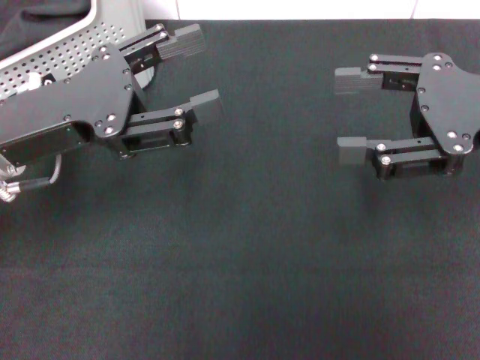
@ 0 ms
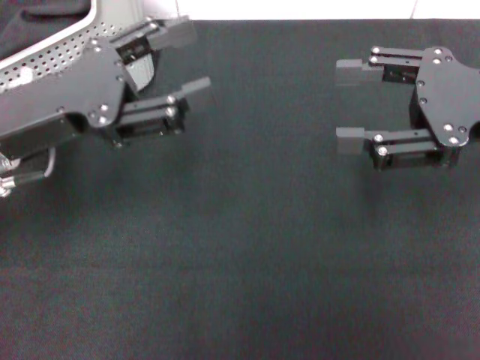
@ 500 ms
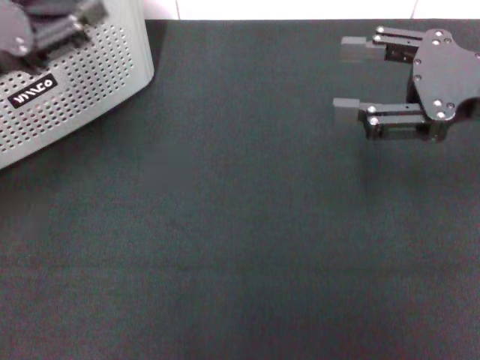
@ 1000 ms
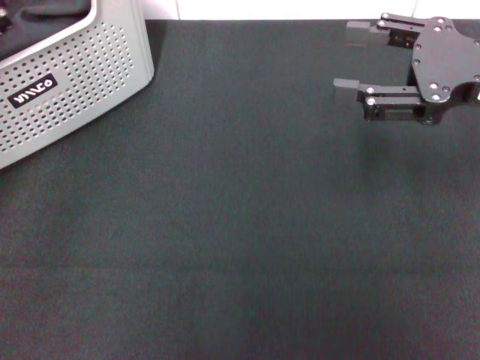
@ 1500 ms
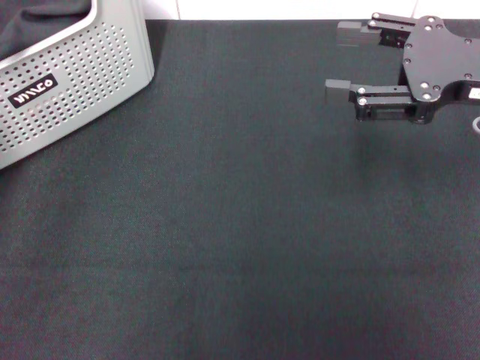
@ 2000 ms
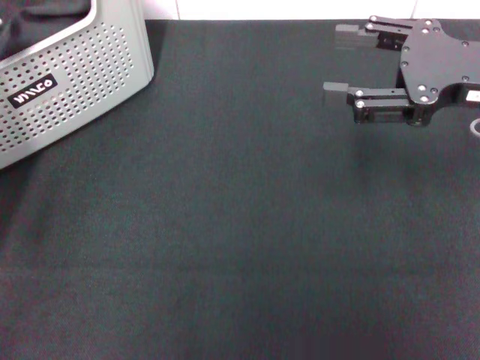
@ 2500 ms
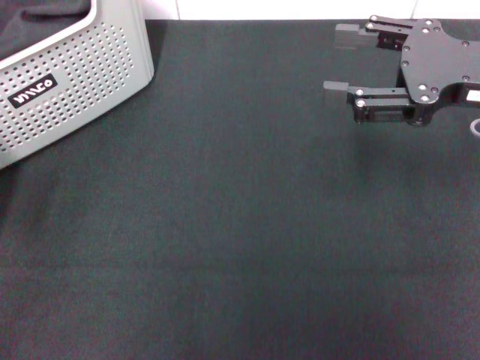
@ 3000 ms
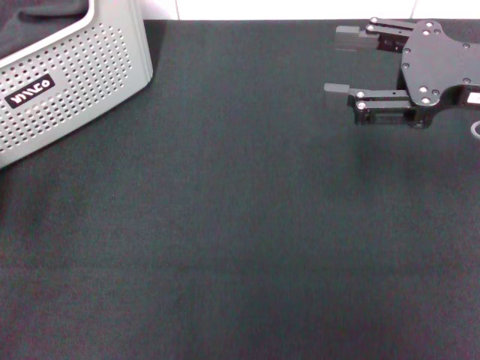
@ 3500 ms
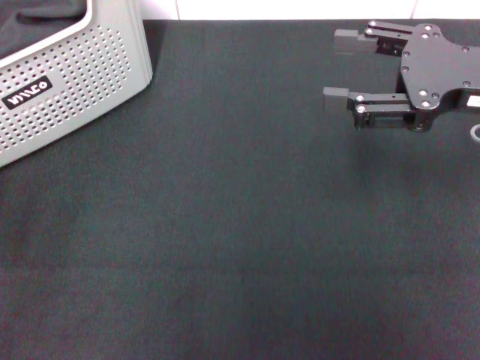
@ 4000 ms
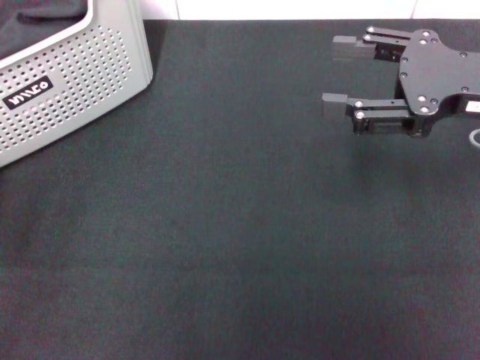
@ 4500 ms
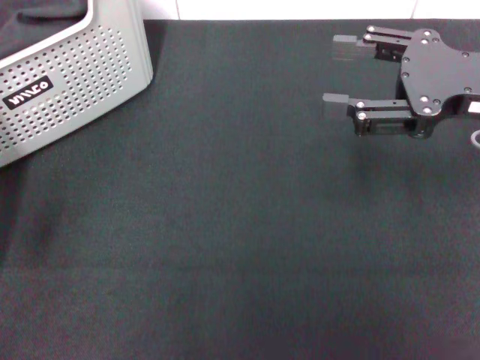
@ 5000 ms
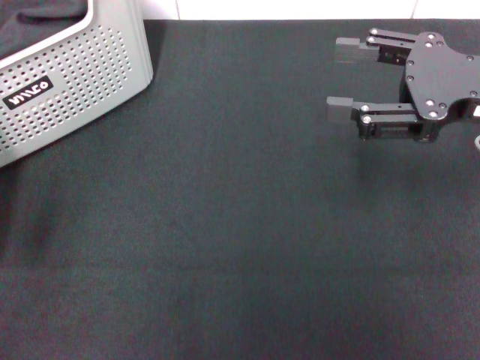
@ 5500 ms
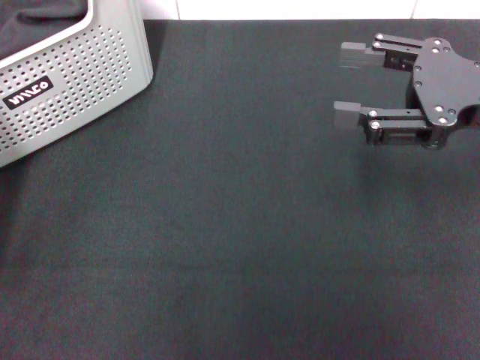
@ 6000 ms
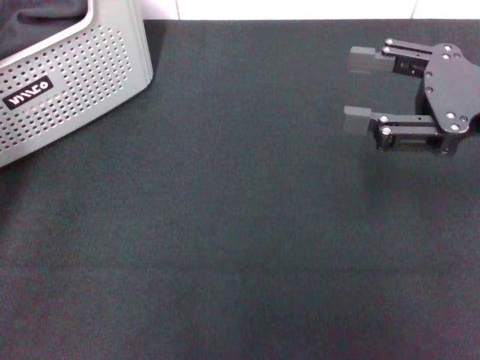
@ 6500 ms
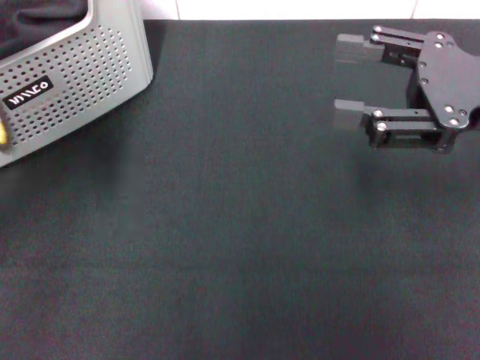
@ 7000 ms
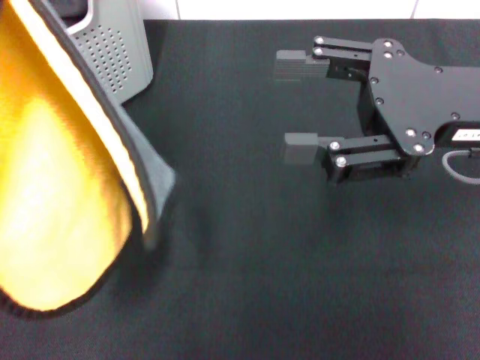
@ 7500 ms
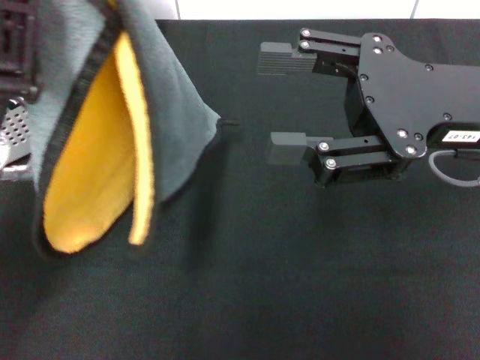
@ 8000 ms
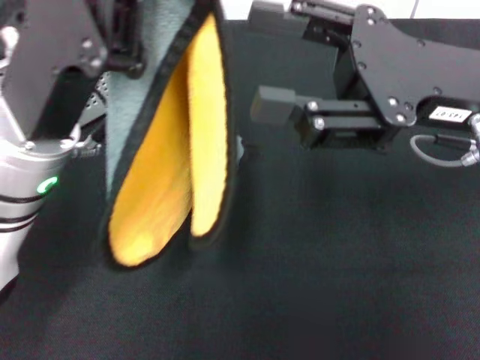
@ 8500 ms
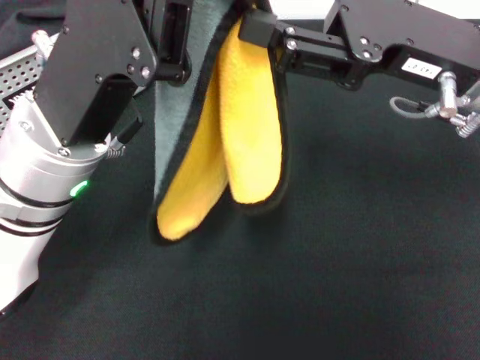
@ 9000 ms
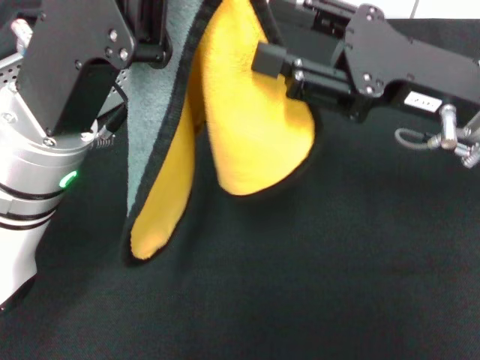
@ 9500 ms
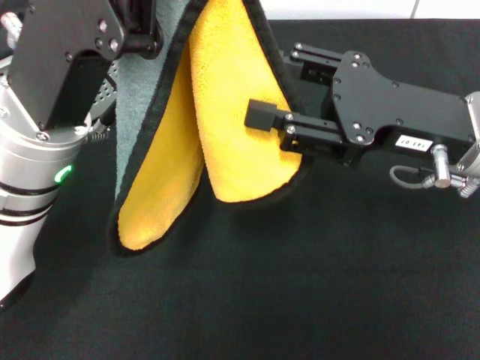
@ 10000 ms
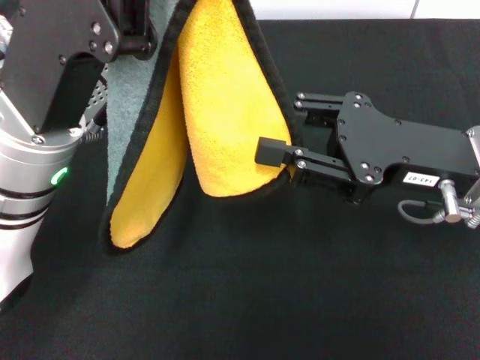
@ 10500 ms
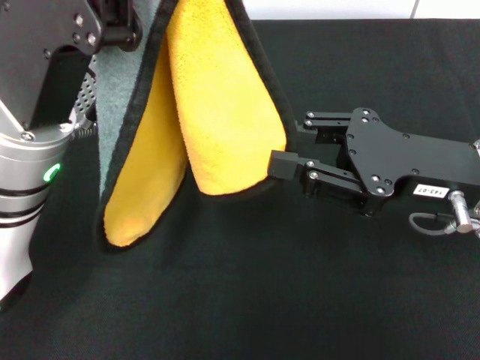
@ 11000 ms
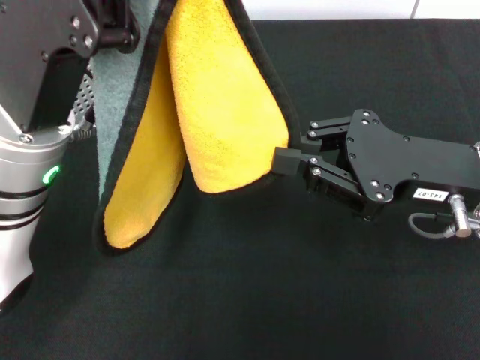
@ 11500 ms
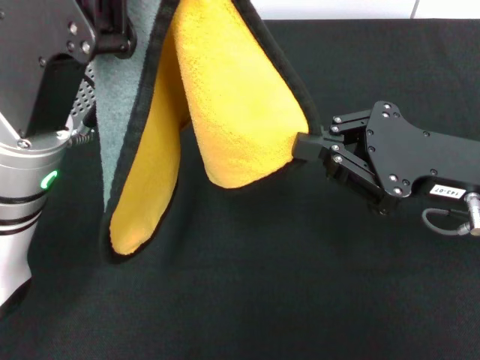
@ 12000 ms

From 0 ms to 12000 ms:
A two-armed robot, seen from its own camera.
Task of the whole recording: pick up the towel from the storage box and lay it flat on the black tablecloth.
Step, from 0 ms to 5500 ms: Pick up a towel with the left gripper.
From 0 ms to 2000 ms: The left gripper moves to the left and downward, some 10 cm.
From 4000 ms to 6000 ms: The left gripper closes its fingers.
From 6000 ms to 8000 ms: The left gripper heads to the right and upward, covering about 15 cm. The right gripper goes roughly 5 cm to the left.
From 8000 ms to 10000 ms: The left gripper moves about 5 cm.
From 10000 ms to 12000 ms: The right gripper closes up.

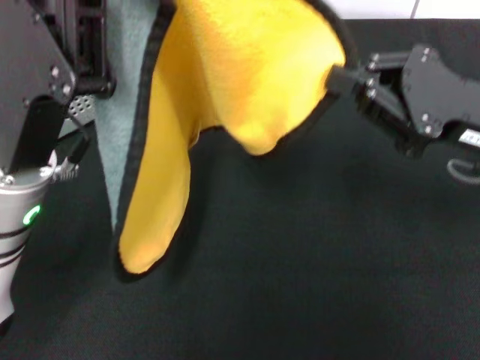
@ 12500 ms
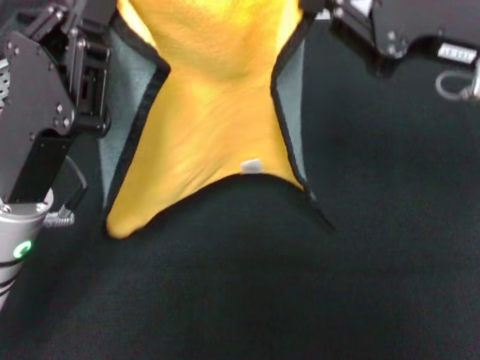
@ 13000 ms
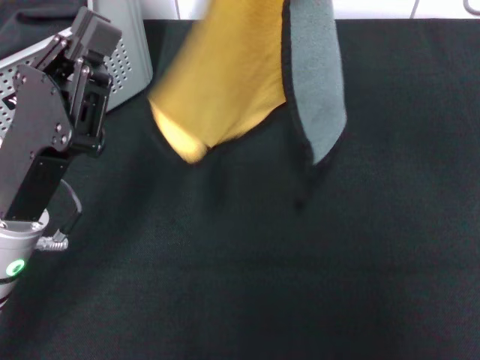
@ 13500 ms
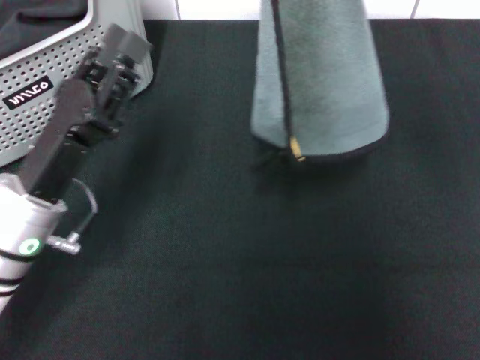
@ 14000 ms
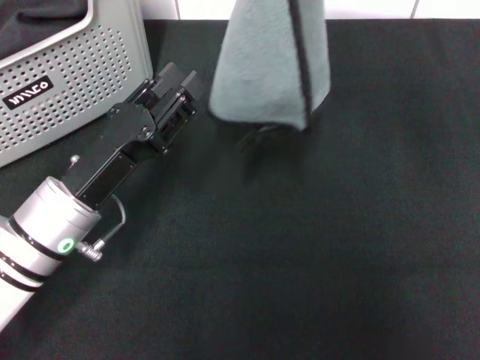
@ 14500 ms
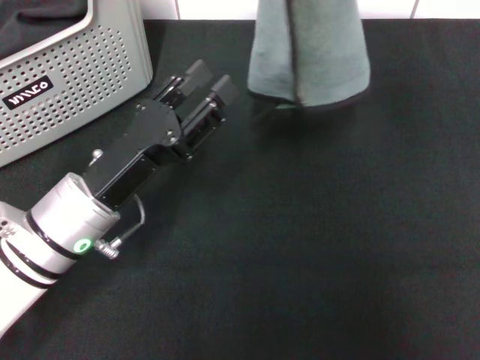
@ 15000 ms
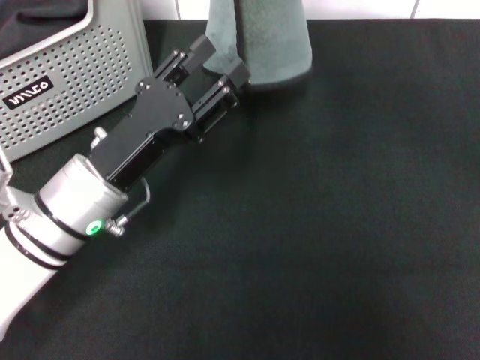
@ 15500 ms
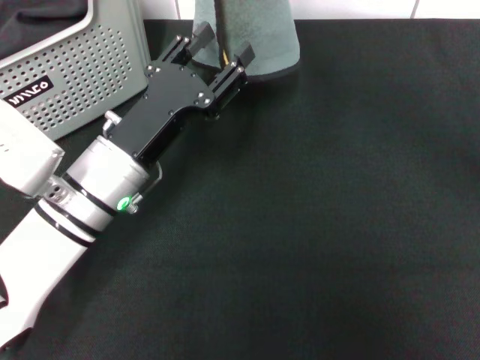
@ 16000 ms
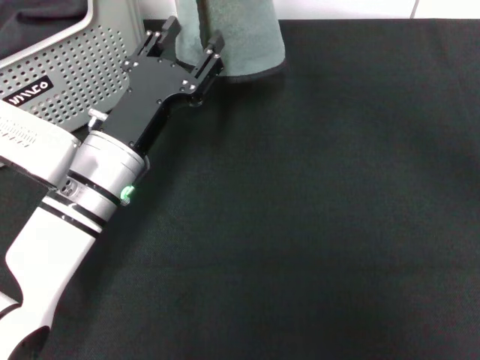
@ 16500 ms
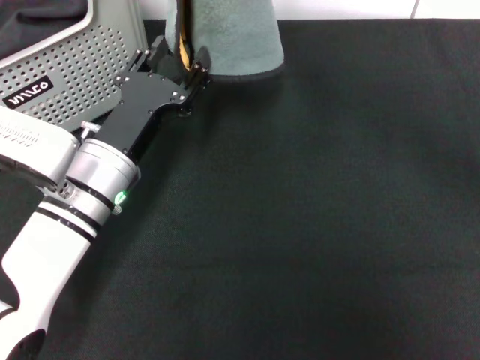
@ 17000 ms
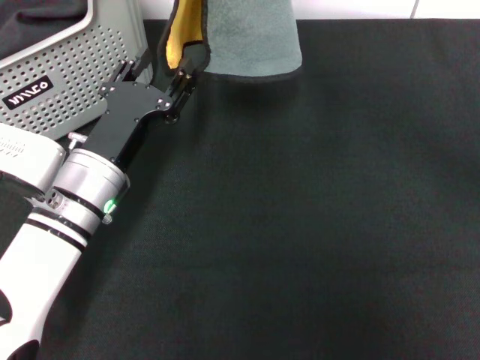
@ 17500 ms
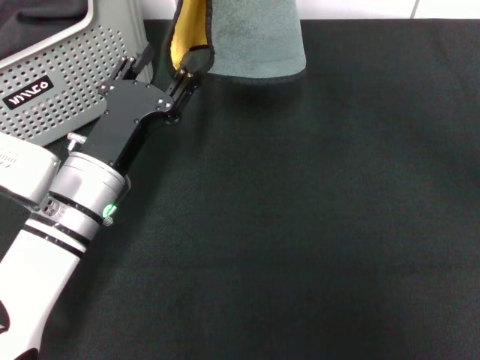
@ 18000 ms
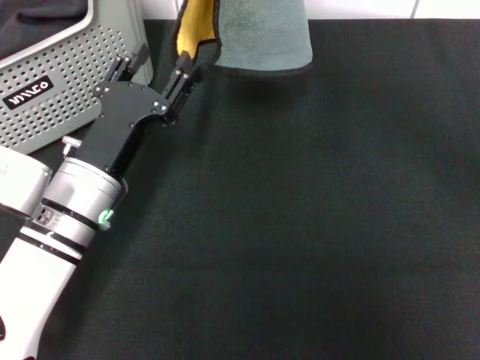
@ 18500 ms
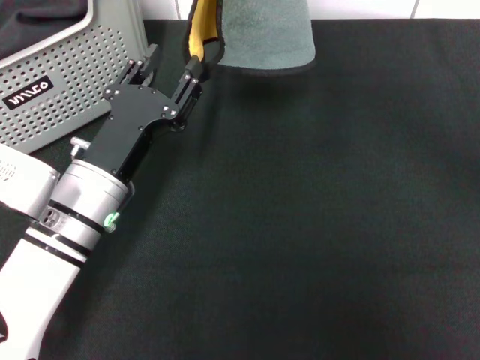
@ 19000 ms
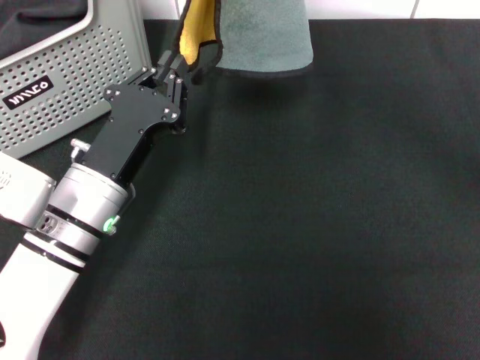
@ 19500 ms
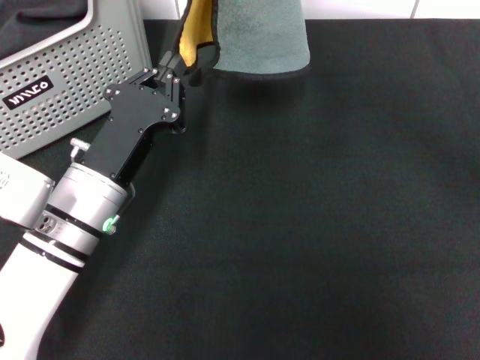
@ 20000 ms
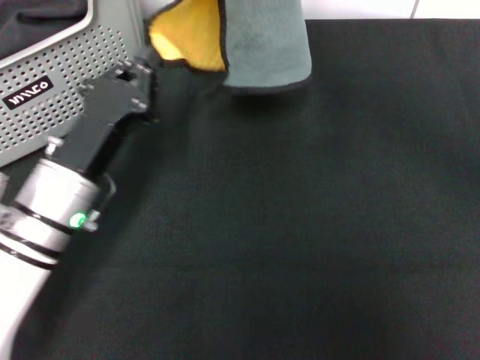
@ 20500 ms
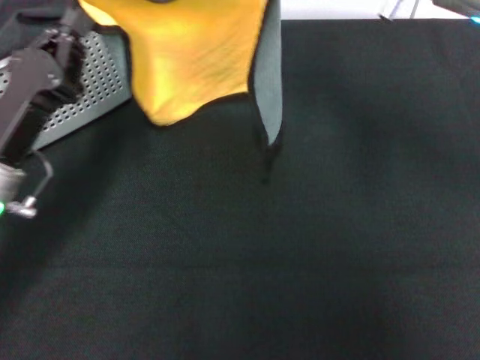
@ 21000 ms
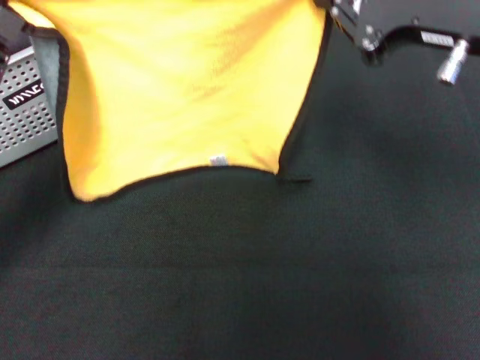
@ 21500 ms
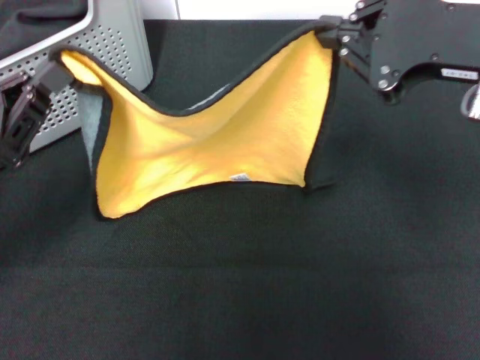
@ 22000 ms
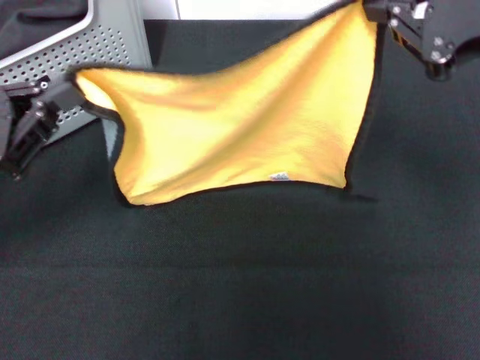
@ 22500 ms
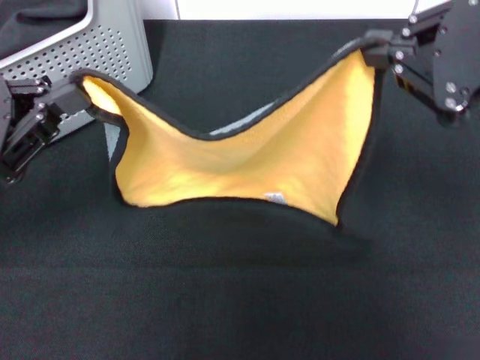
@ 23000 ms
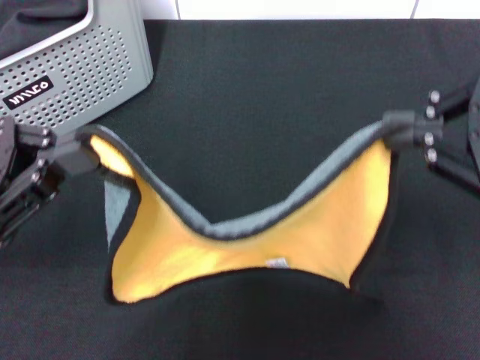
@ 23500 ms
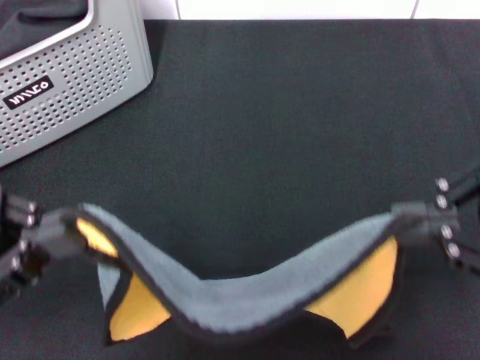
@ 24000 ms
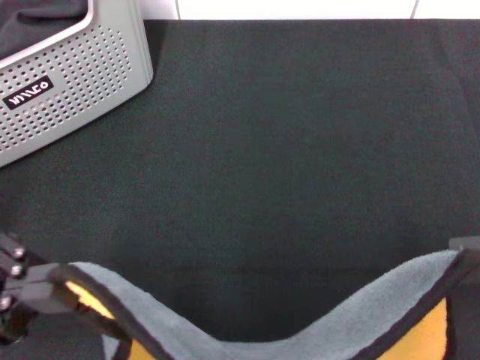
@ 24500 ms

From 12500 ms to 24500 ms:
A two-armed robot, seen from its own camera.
Task of the whole recording: pick up the towel from the storage box and lay it flat on the black tablecloth.
From 12500 ms to 14500 ms: The right gripper travels upward by approximately 15 cm, while the left gripper shifts some 10 cm downward, and opens.
From 14500 ms to 16500 ms: The left gripper moves roughly 5 cm, while the right gripper shifts roughly 10 cm to the left.
From 16500 ms to 18500 ms: The grippers make only small movements.
From 18500 ms to 20500 ms: The left gripper closes.
From 20500 ms to 22500 ms: The right gripper travels to the right and backward by about 15 cm. Meanwhile the left gripper travels to the left and upward by roughly 15 cm.
From 22500 ms to 24500 ms: The two grippers go about 10 cm backward.

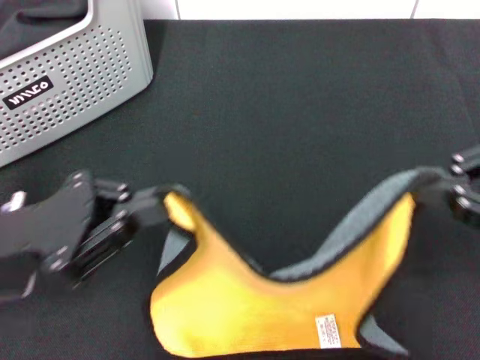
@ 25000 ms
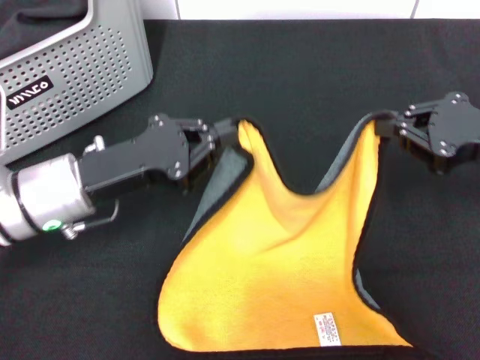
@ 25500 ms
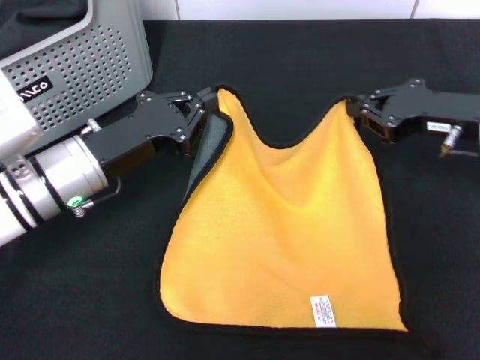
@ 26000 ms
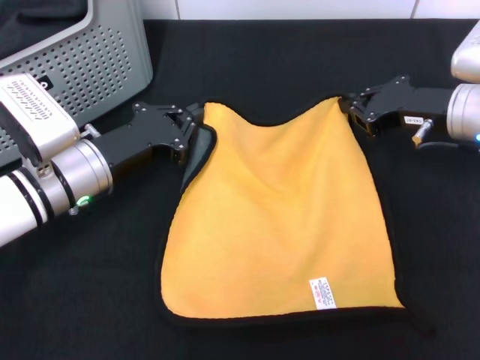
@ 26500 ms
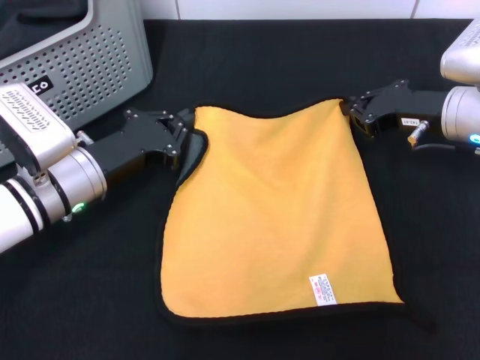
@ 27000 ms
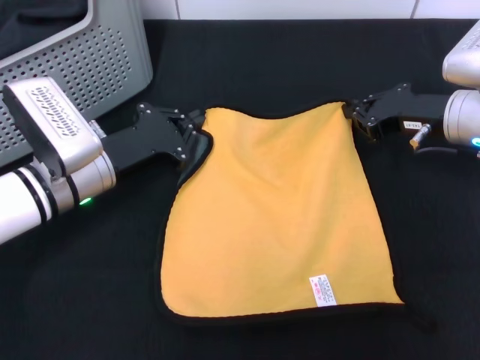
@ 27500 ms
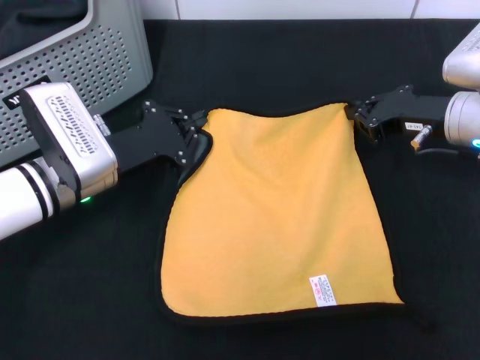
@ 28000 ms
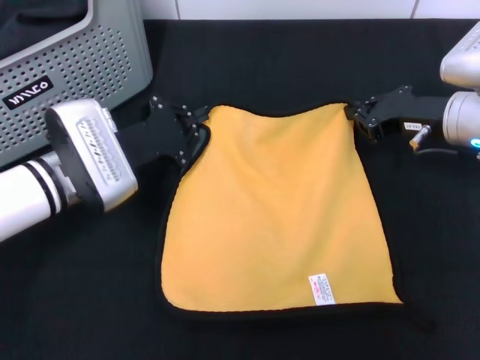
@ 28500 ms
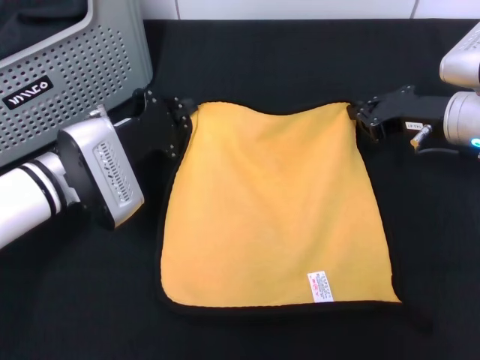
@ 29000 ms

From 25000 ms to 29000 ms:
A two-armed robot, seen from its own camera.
Task of the whole recording: pick up the towel from the storage box and lay it flat on the black tablecloth.
From 25000 ms to 27000 ms: The left gripper goes approximately 10 cm forward and downward. The right gripper travels forward, downward and to the left by approximately 20 cm.
